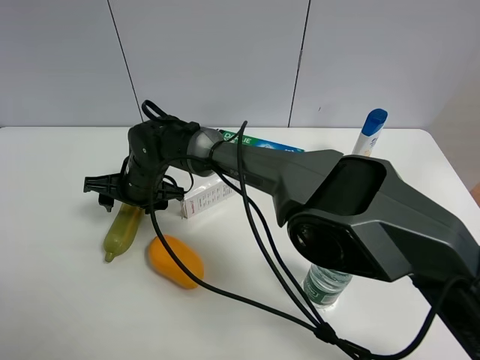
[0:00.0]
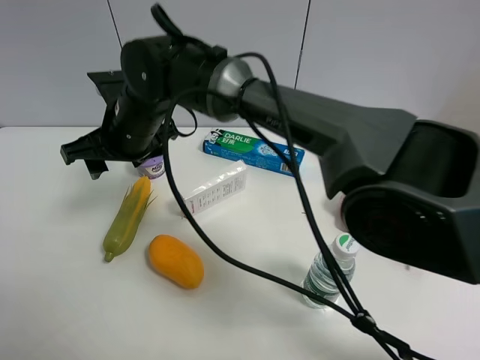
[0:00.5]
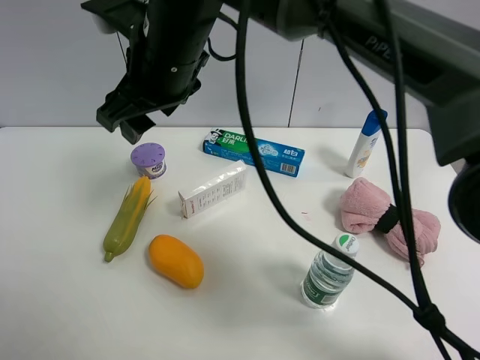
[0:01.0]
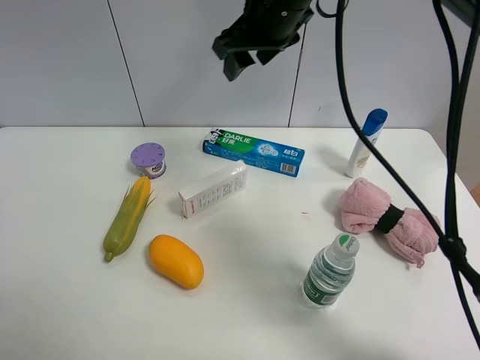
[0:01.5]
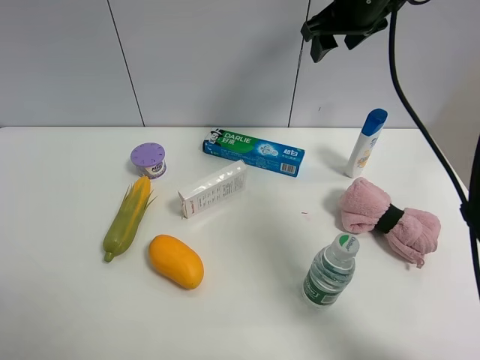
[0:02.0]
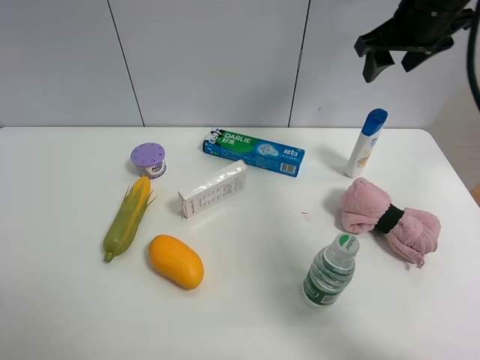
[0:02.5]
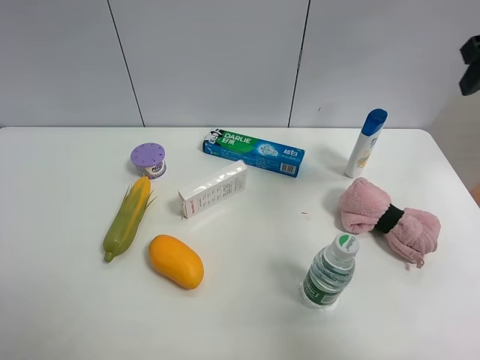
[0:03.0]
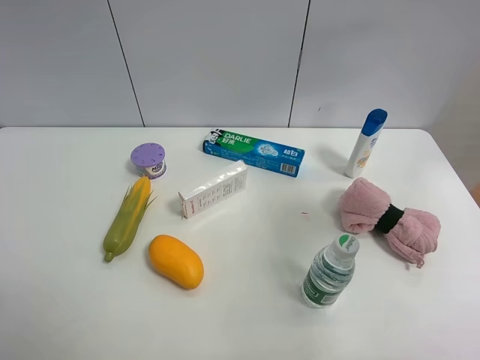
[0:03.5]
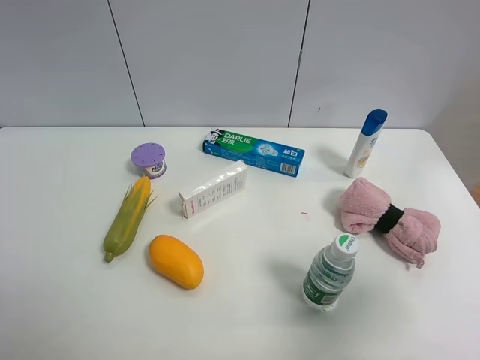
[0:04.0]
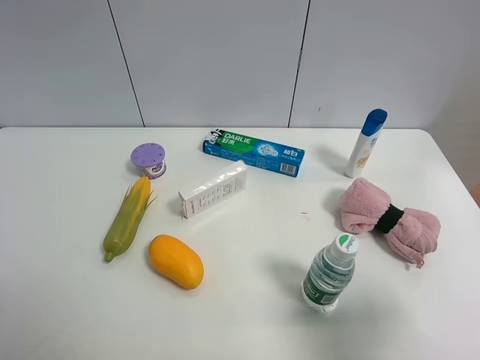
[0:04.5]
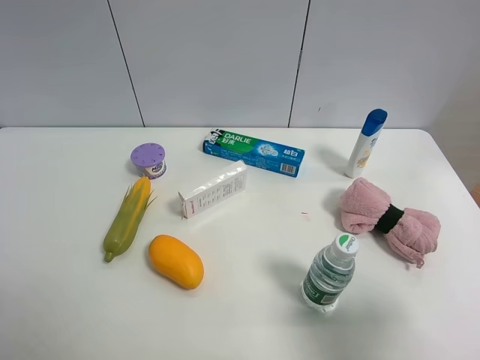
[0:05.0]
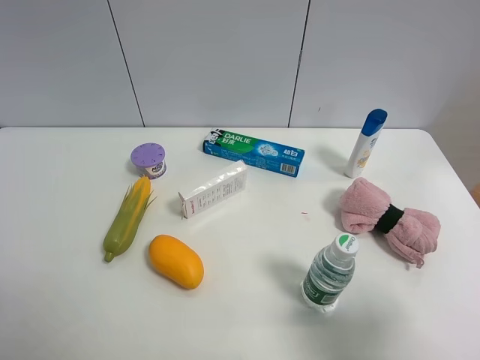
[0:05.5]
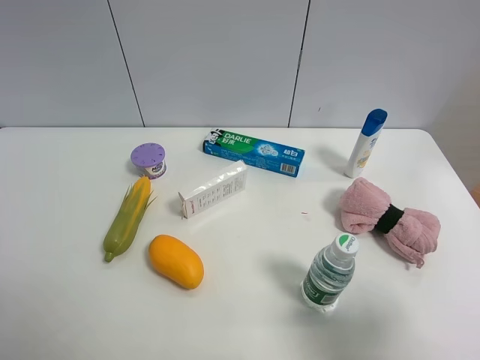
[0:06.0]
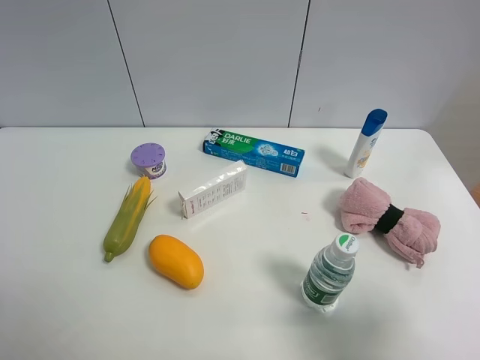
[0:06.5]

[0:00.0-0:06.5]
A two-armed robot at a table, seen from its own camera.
Task of the whole recording: the gripper move the object.
0:00.0 to 0:02.0: The right gripper travels to the right and upward by about 40 cm.
0:02.0 to 0:04.5: The right gripper goes approximately 40 cm backward, and opens.

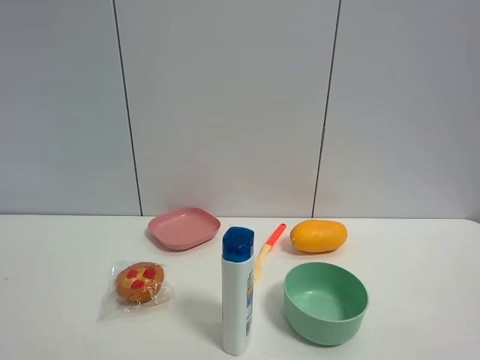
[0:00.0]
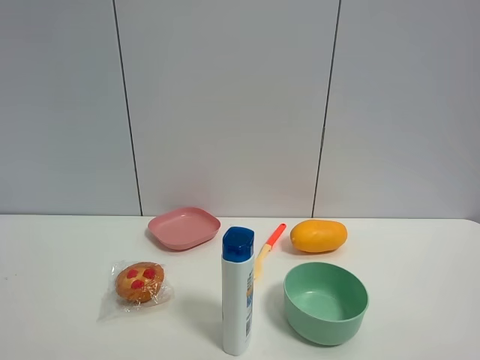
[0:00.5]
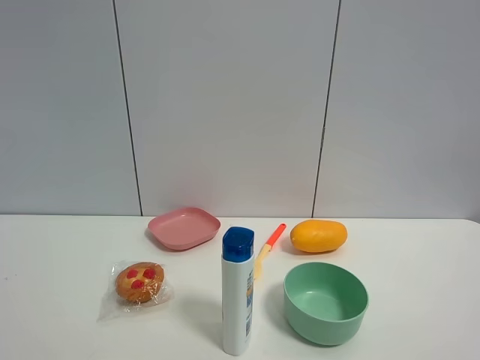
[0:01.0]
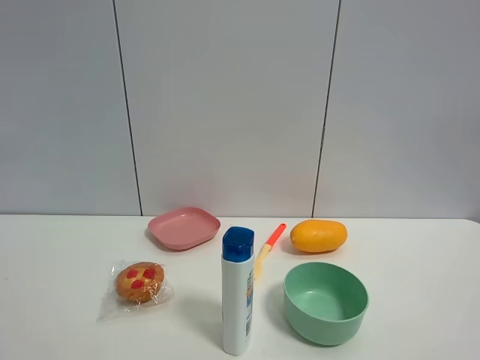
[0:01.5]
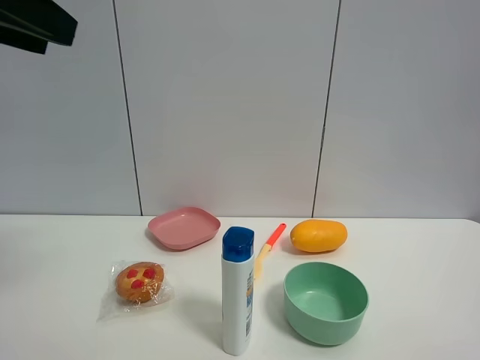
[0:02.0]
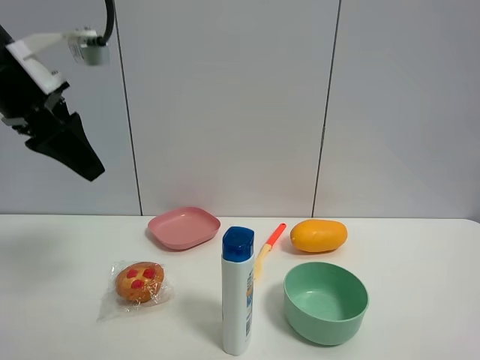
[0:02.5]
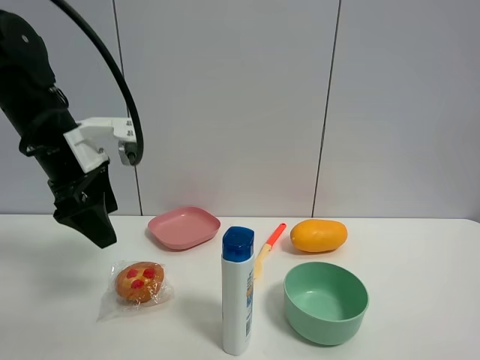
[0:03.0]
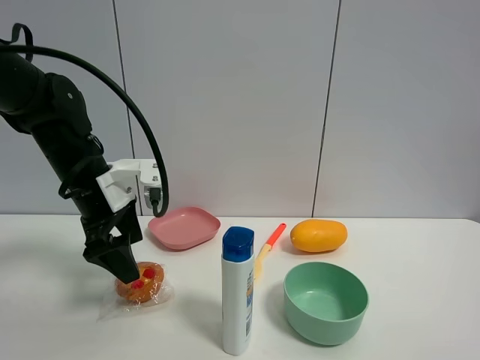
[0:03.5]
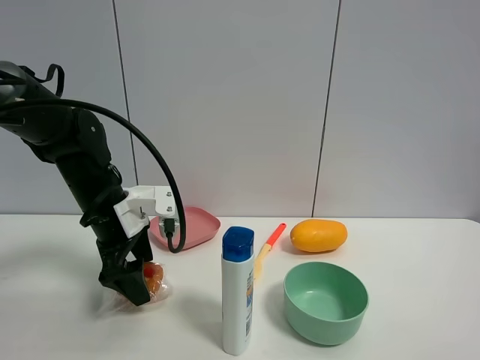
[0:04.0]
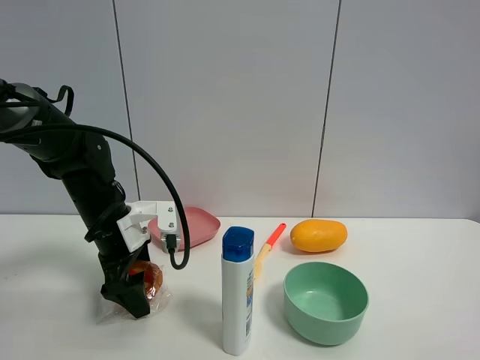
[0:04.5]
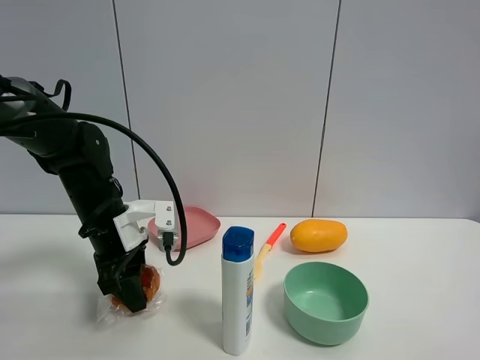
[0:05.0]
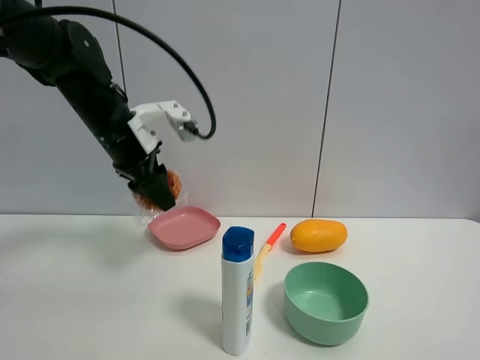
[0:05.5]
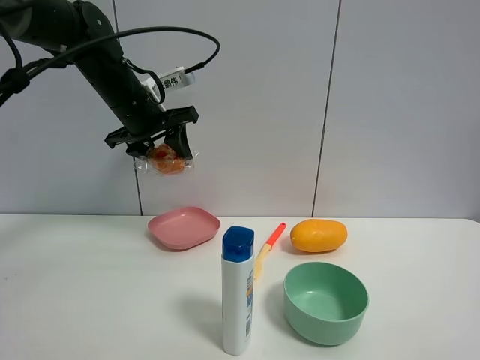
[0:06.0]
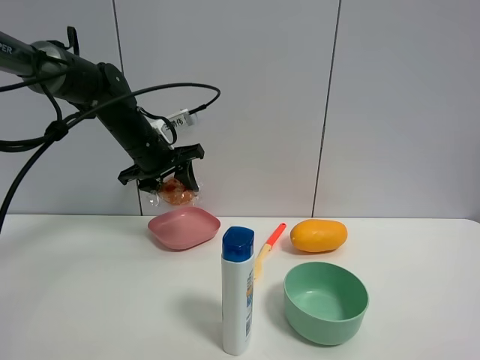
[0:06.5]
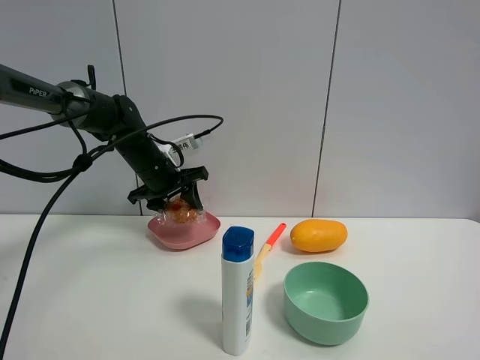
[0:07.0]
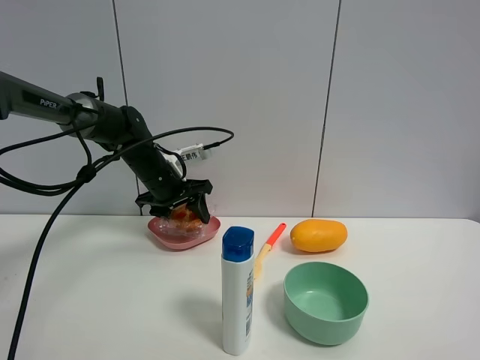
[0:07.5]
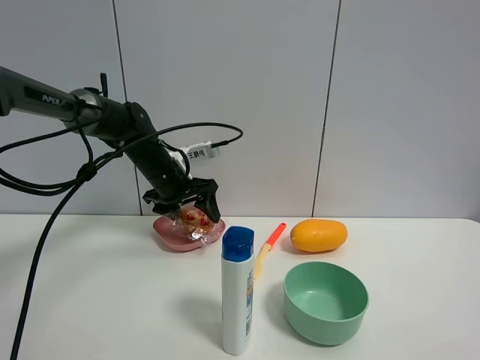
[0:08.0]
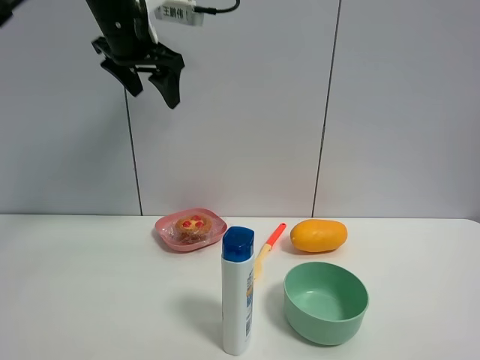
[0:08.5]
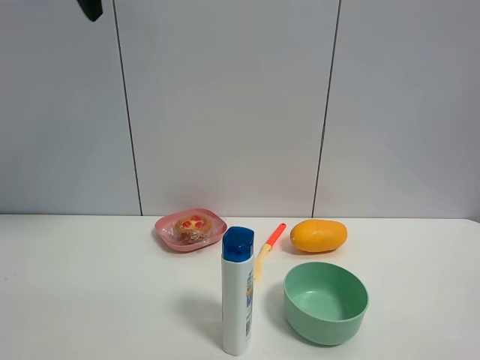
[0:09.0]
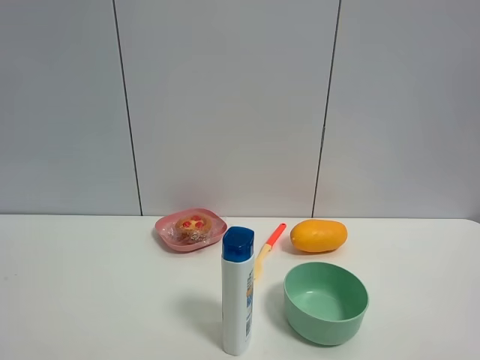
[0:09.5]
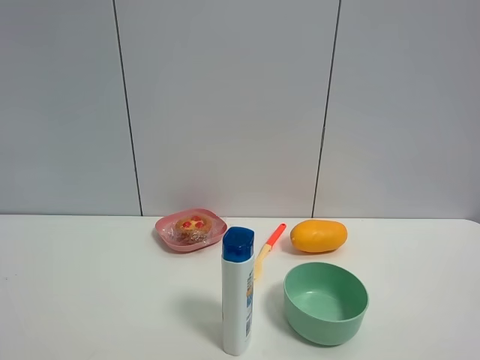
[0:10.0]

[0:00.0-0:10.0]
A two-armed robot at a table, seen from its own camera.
Task of the whole recording: the gripper move the object.
Step, 0:00.0 to 0:04.5: Grasp the egg tart with the left gripper.
Step, 0:05.0 to 0:08.0: Place the egg tart into the pink plate with the left gripper.
0:00.0 to 0:02.0: The left gripper shifts about 25 cm forward.
0:02.0 to 0:04.0: The left gripper shifts approximately 30 cm downward and forward.
0:04.0 to 0:06.0: The left gripper goes roughly 15 cm upward and forward, and closes.
0:06.0 to 0:08.0: The left gripper shifts about 10 cm downward, and opens up.
0:08.0 to 0:10.0: The left gripper shifts roughly 50 cm backward and upward.

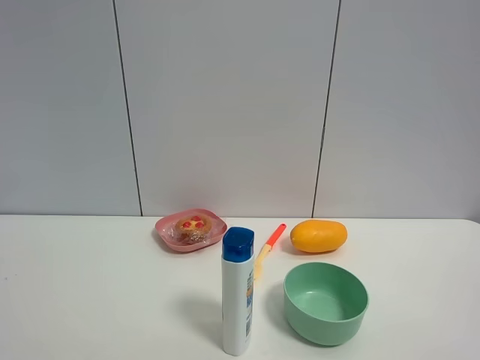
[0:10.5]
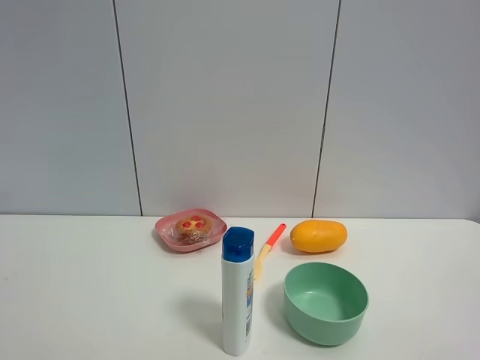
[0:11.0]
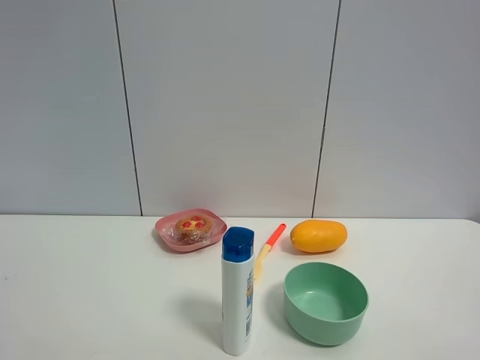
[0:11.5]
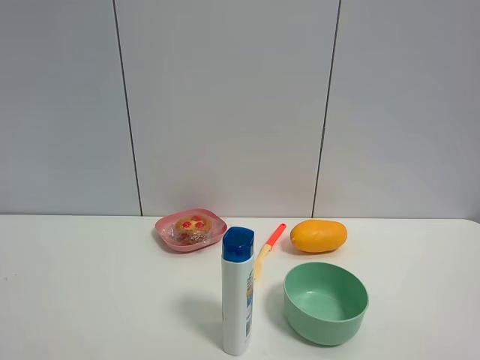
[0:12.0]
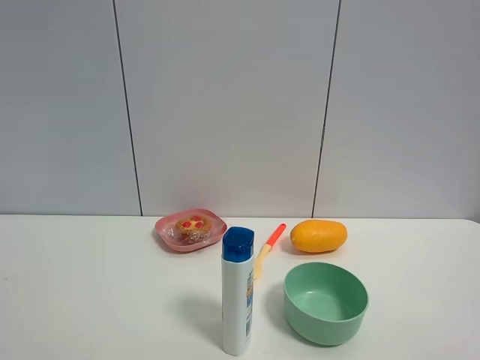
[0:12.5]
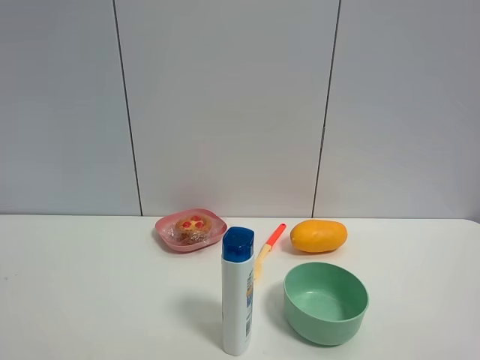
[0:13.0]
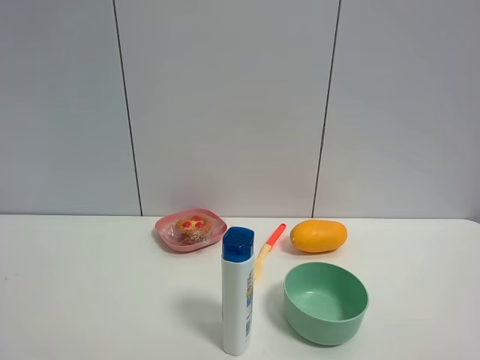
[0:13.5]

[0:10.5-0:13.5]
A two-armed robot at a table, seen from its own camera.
Task of the whole recording: the gripper move the object.
0:12.0 to 0:13.5: The two grippers keep their place.

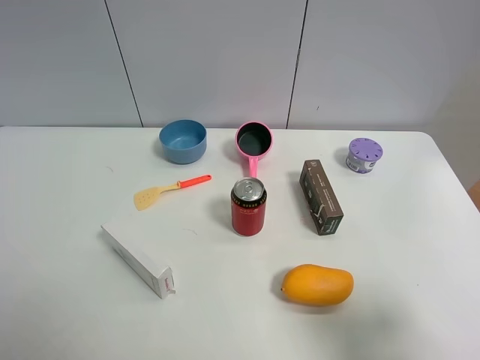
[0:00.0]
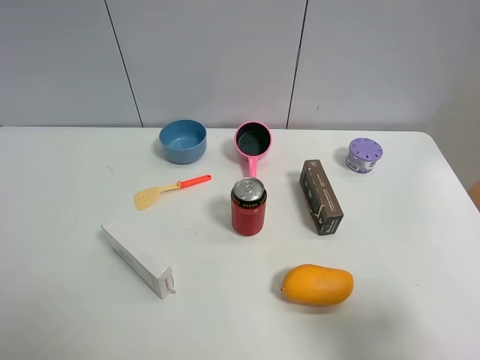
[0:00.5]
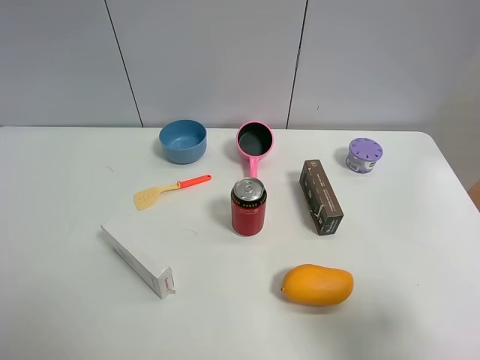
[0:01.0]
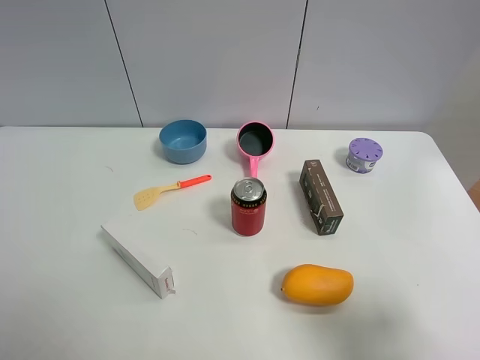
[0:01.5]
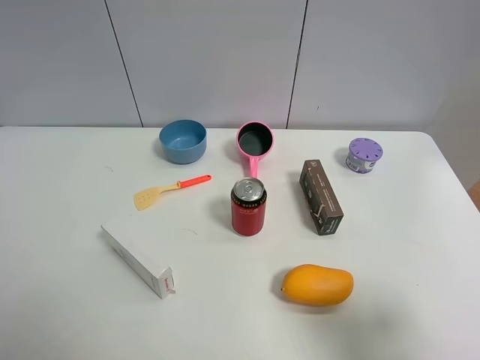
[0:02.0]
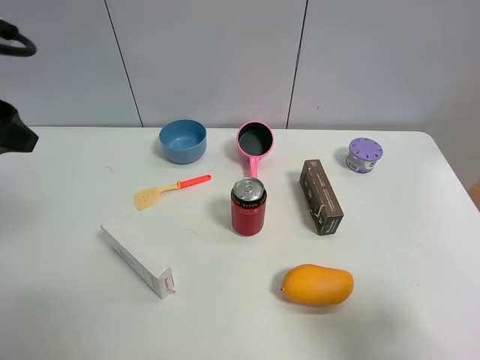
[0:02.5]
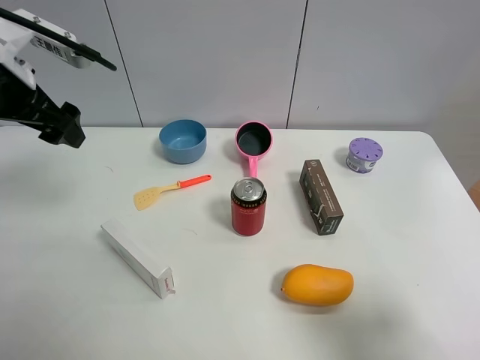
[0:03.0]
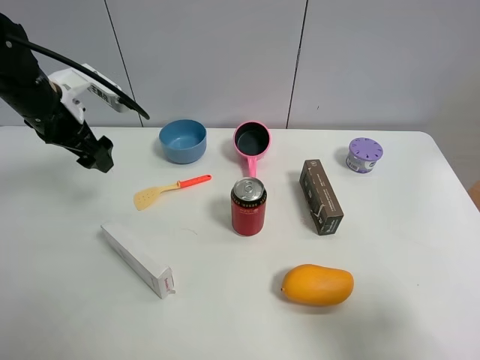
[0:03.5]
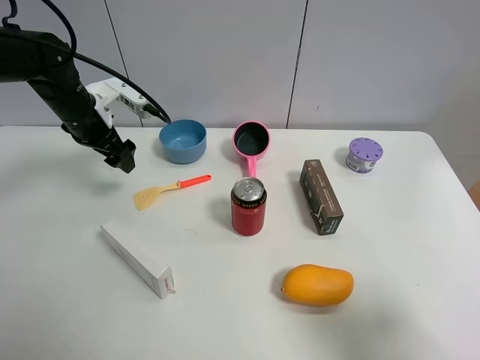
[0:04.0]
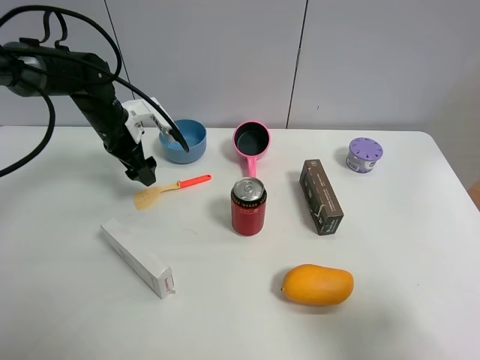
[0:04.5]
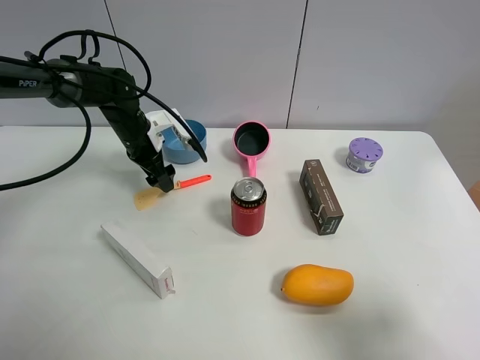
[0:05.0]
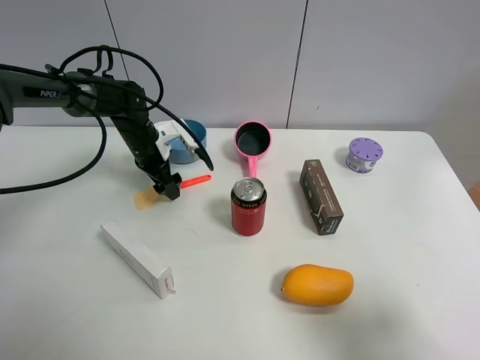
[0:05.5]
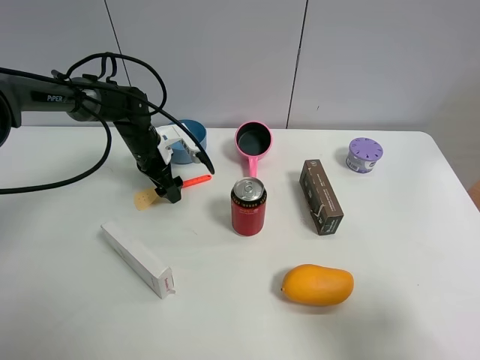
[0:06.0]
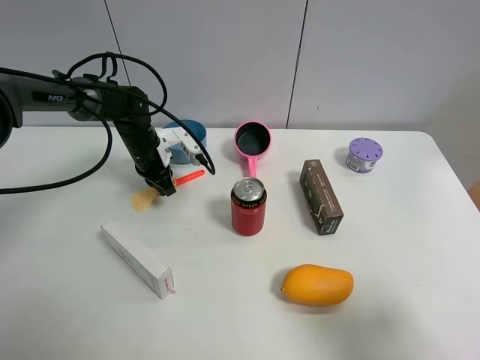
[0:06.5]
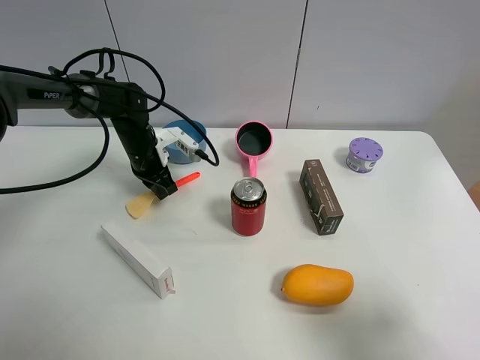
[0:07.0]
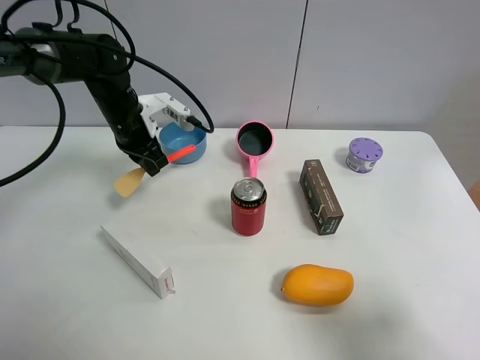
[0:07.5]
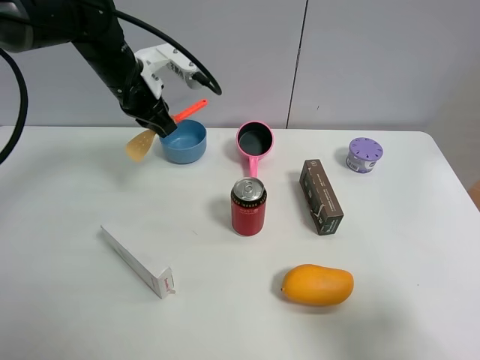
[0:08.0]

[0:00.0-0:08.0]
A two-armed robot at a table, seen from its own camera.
Task of the whole recording: the gripper move the object.
Step, 0:00.0 to 0:06.5: Grasp the cooking shovel with the left gripper.
0:02.0 to 0:04.0: The left gripper heads forward and downward, covering roughly 35 cm.
0:04.0 to 0:06.0: The left gripper heads downward and to the right, covering some 15 cm.
0:06.0 to 0:08.0: The left gripper shifts roughly 15 cm upward, and closes its fingers.
